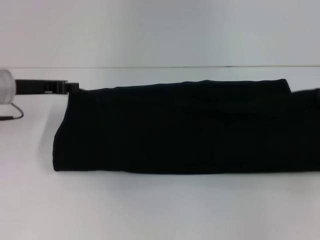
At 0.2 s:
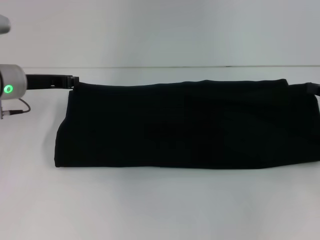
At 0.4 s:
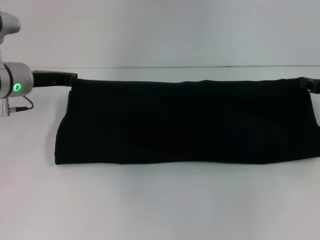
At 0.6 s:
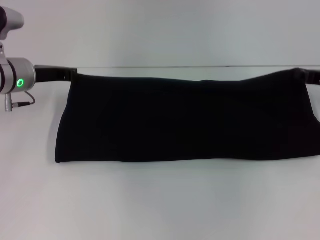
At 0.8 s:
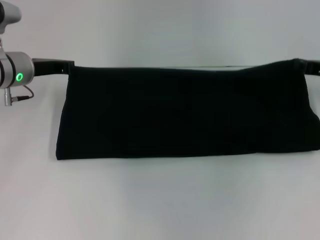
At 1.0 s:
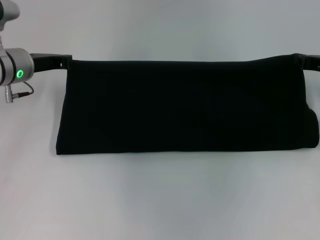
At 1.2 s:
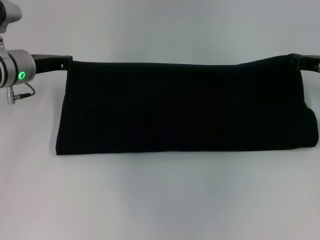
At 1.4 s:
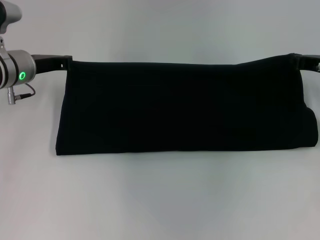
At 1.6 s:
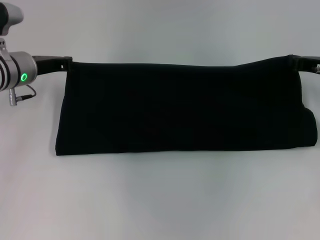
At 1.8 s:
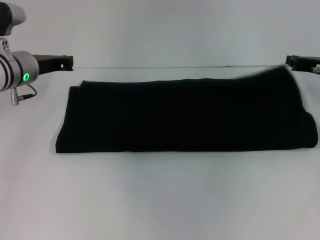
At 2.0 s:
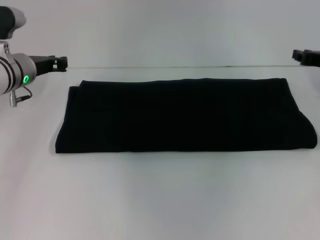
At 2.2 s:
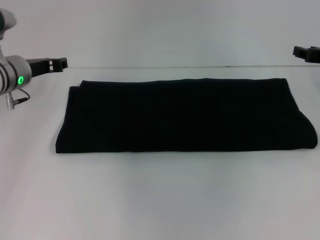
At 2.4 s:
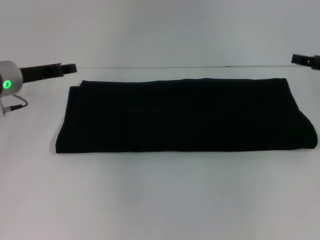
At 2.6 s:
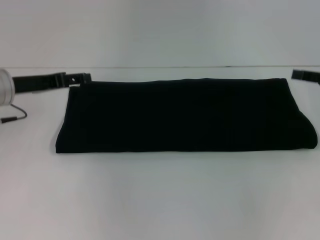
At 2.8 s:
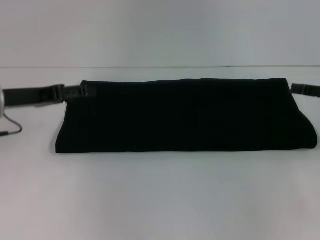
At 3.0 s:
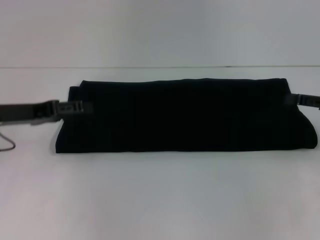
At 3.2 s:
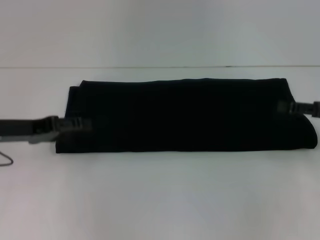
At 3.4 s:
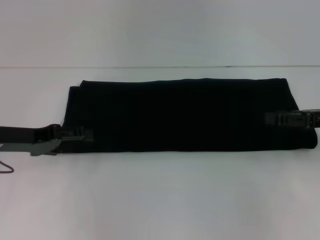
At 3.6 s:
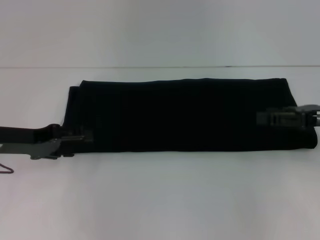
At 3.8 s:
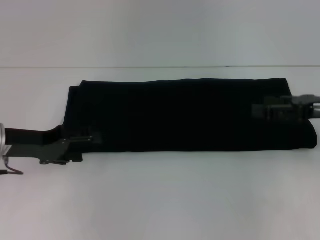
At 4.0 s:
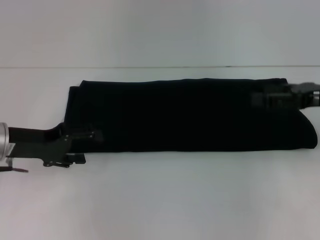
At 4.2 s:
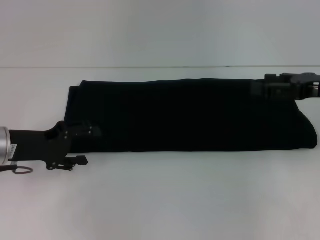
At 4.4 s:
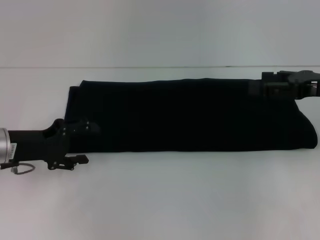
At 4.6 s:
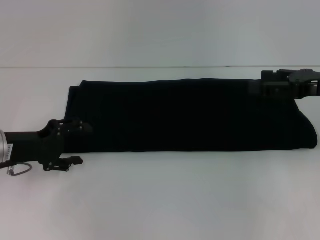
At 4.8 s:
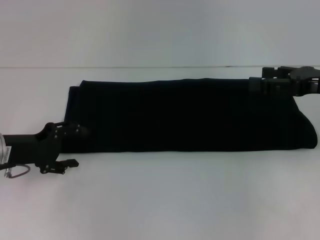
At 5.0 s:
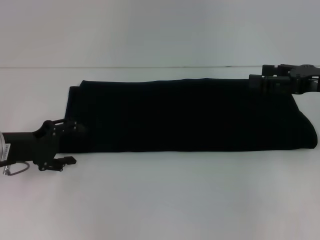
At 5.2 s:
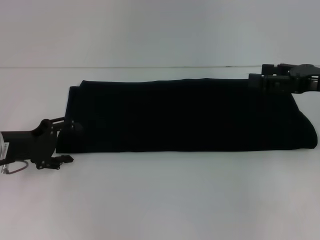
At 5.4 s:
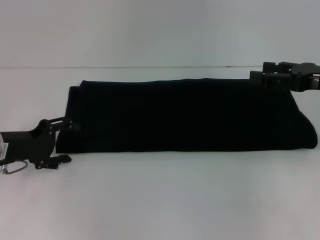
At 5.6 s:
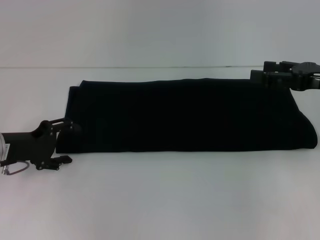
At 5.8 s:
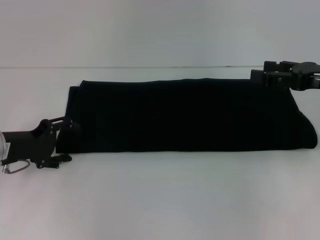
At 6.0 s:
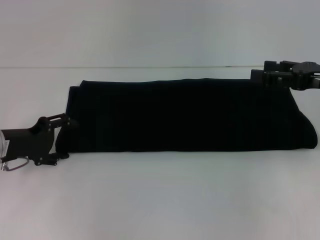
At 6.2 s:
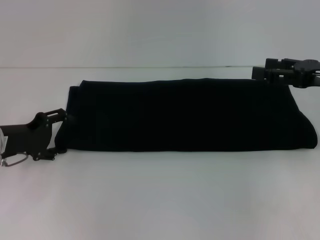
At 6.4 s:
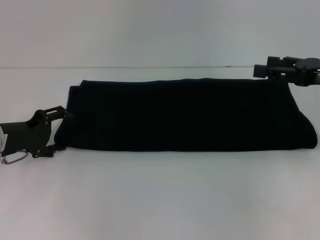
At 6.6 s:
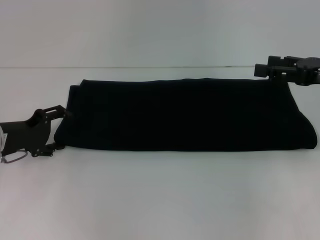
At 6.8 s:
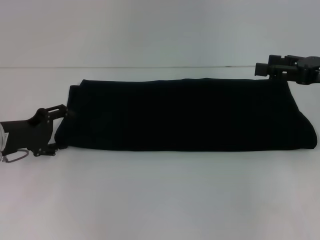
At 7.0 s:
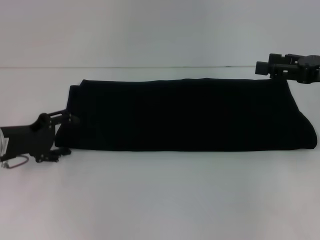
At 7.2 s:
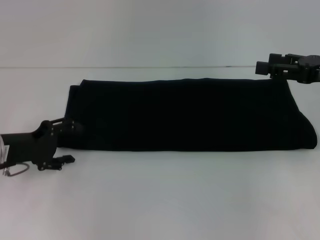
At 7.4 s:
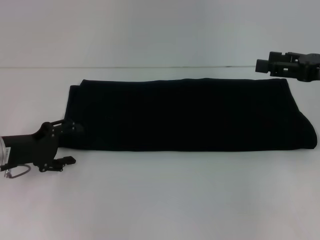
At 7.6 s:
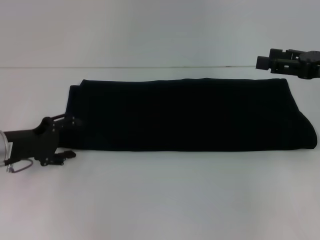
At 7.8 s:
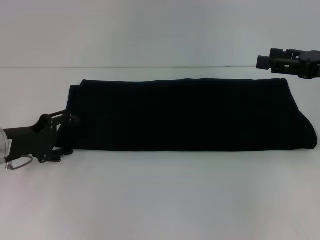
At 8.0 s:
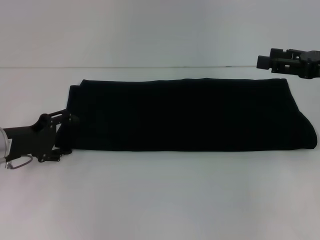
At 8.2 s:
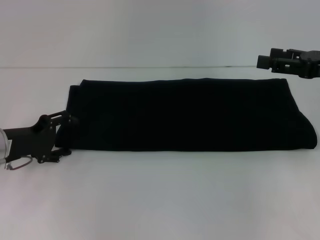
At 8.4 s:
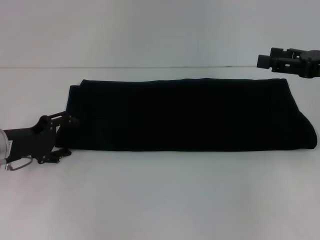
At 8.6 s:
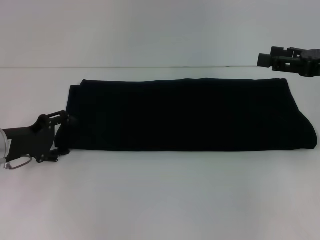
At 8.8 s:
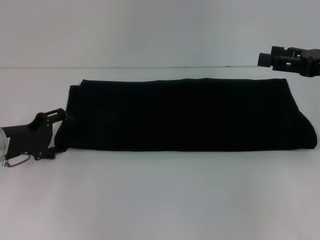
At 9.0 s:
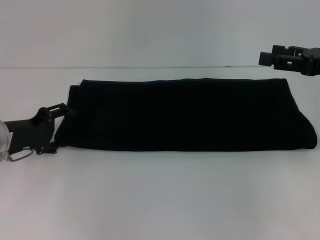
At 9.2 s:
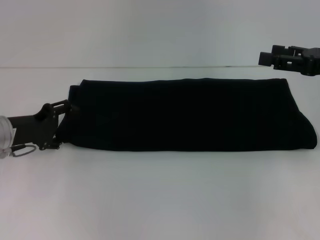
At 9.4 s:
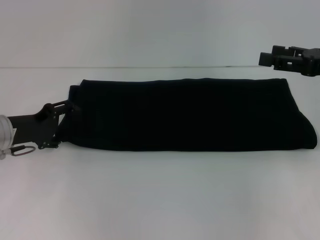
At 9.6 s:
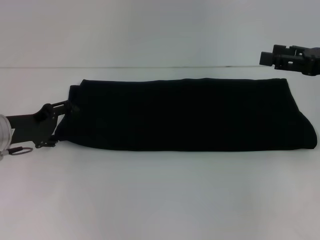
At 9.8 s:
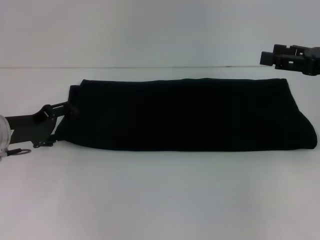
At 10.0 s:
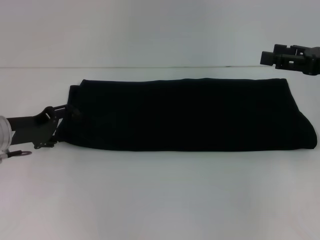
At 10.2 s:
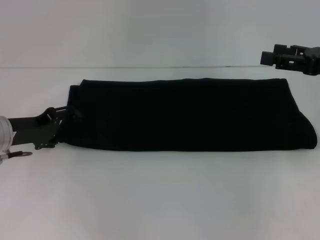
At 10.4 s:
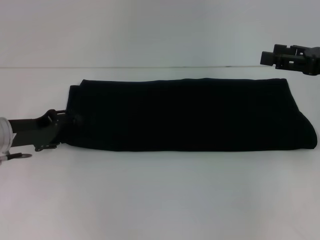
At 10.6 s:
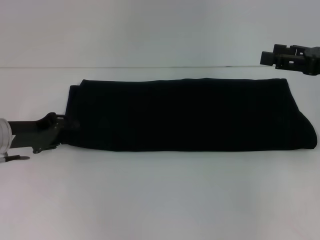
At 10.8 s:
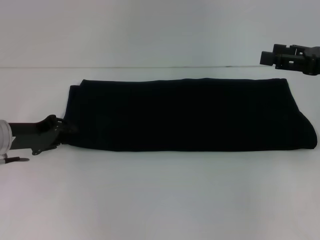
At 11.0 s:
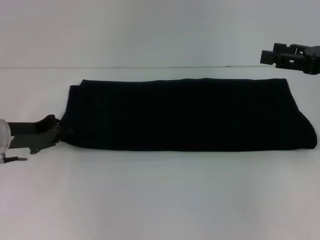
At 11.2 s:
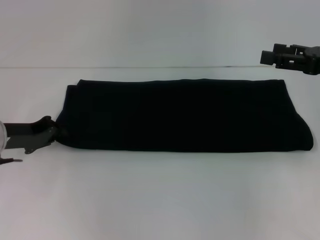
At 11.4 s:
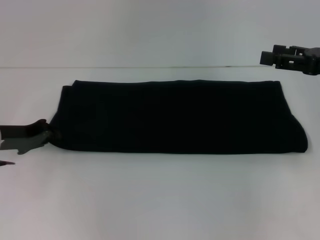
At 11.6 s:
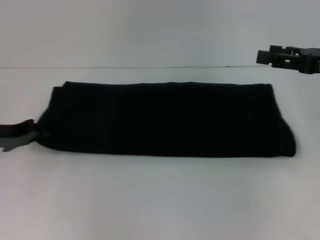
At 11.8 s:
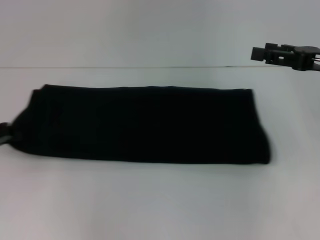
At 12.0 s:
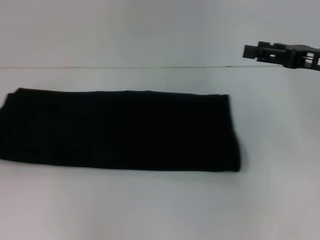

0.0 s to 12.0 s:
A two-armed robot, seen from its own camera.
Step, 0.0 to 3.8 s: Fold the clothes with your right hand.
0.0 to 1.6 s: The right gripper is displaced forward and to the left by approximately 10 cm; the left gripper changes place by about 5 cm.
1.6 to 3.0 s: The right gripper moves backward and to the right, approximately 10 cm, and opens its fingers, while the left gripper is displaced backward by approximately 10 cm, and opens its fingers.
3.0 to 4.4 s: The right gripper shifts about 5 cm to the left.
4.4 to 6.0 s: The grippers stay close to where they were, moving slightly.
6.0 to 7.6 s: The two grippers keep their place.
7.6 to 9.0 s: There are only small adjustments of the grippers.
9.0 to 10.4 s: The grippers make only small movements.
10.4 to 12.0 s: The left gripper heads to the left, covering some 10 cm, and closes up.

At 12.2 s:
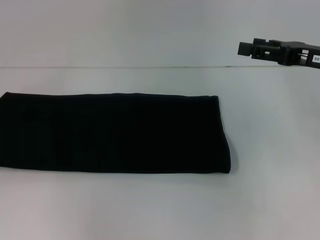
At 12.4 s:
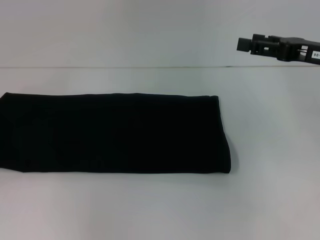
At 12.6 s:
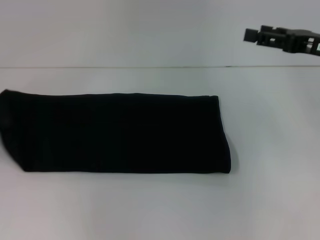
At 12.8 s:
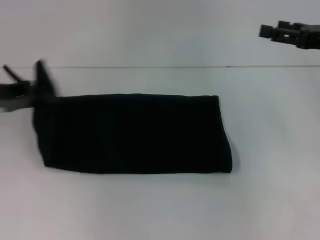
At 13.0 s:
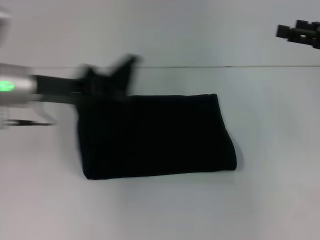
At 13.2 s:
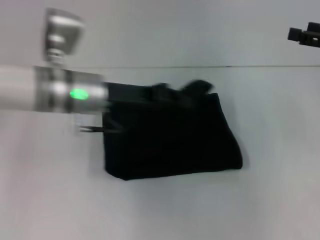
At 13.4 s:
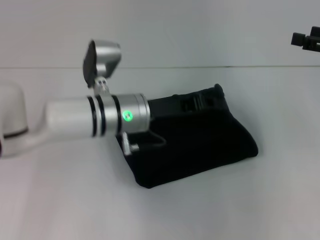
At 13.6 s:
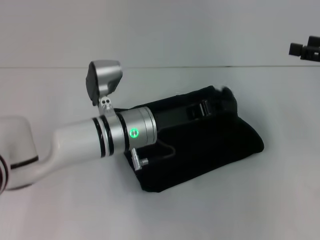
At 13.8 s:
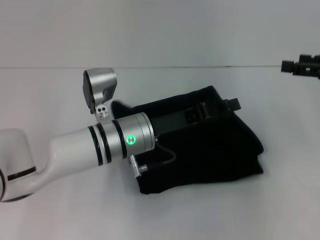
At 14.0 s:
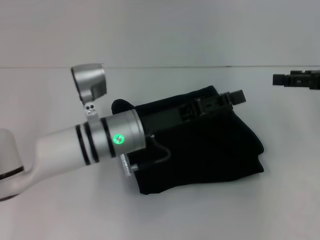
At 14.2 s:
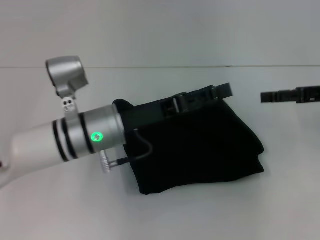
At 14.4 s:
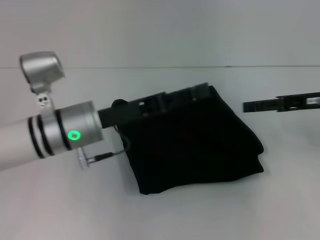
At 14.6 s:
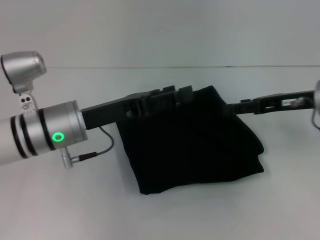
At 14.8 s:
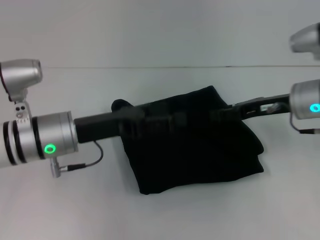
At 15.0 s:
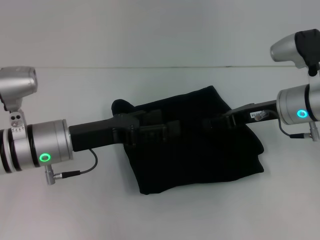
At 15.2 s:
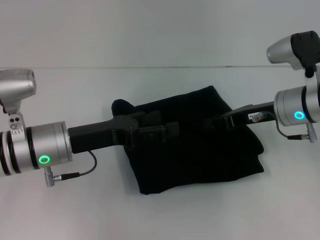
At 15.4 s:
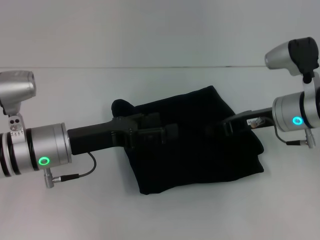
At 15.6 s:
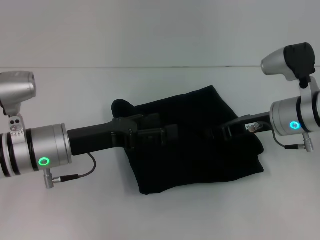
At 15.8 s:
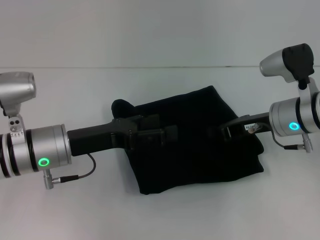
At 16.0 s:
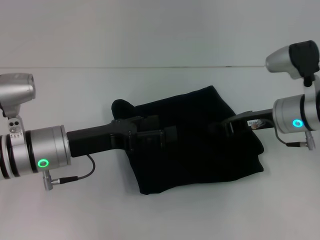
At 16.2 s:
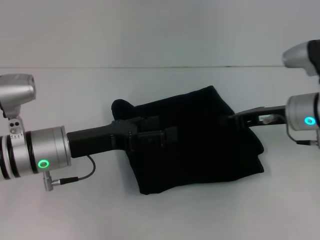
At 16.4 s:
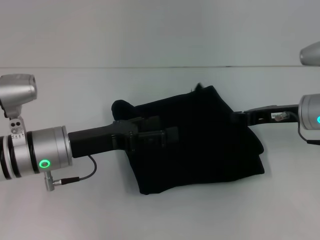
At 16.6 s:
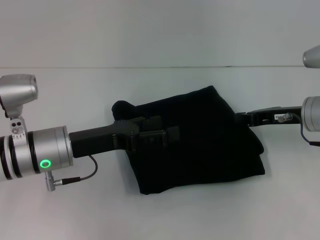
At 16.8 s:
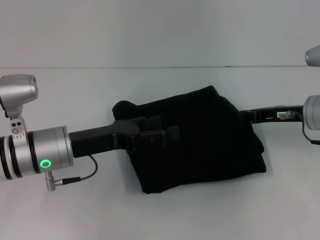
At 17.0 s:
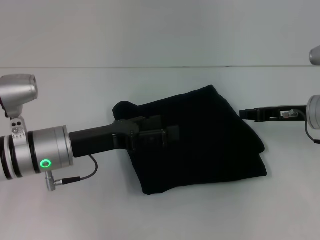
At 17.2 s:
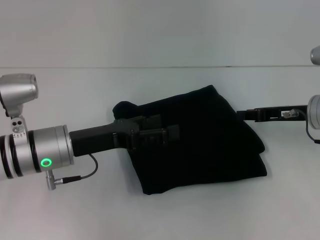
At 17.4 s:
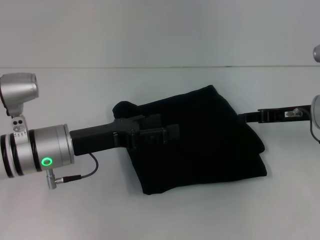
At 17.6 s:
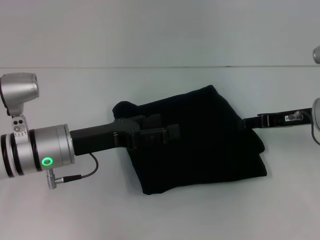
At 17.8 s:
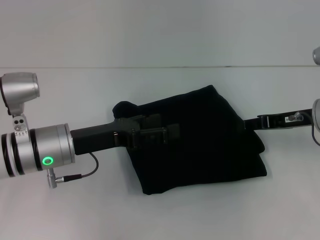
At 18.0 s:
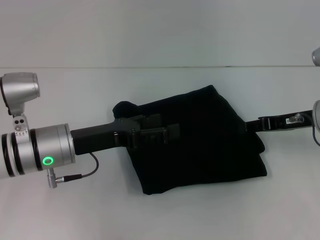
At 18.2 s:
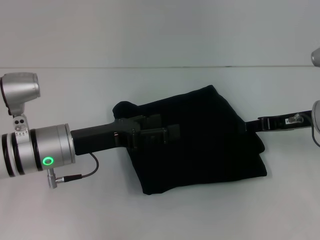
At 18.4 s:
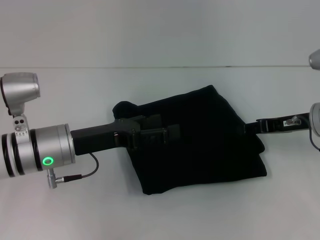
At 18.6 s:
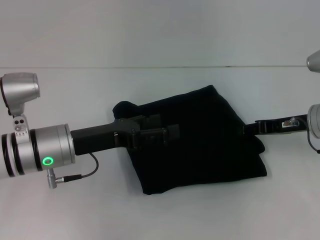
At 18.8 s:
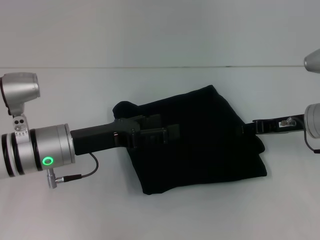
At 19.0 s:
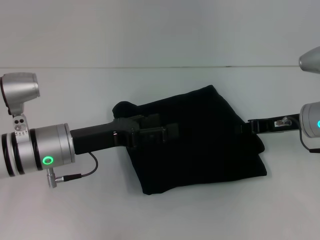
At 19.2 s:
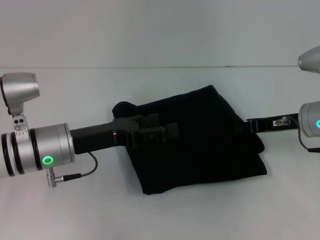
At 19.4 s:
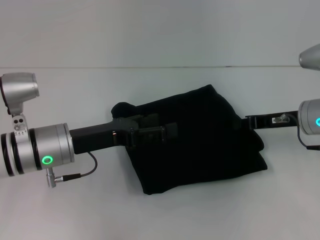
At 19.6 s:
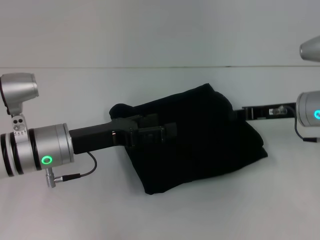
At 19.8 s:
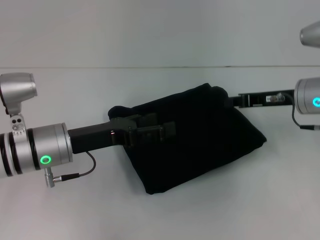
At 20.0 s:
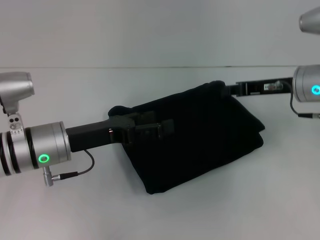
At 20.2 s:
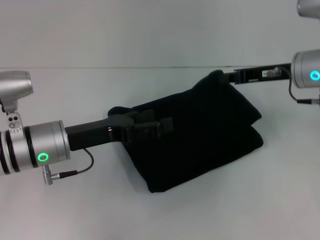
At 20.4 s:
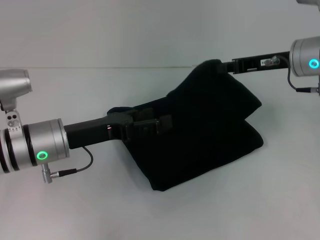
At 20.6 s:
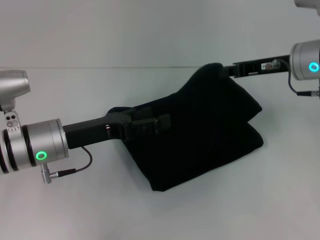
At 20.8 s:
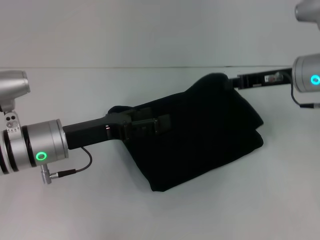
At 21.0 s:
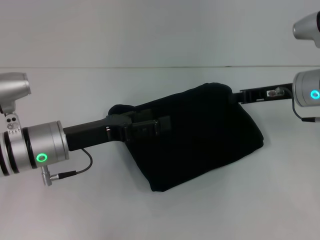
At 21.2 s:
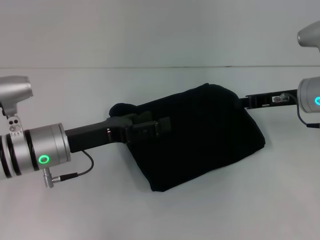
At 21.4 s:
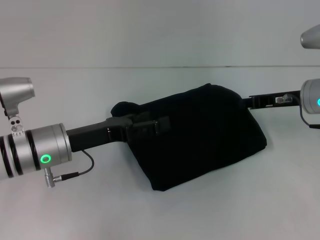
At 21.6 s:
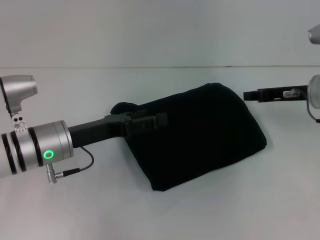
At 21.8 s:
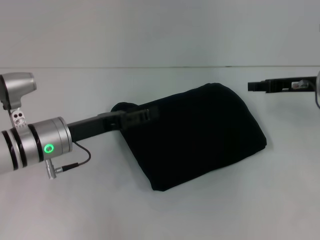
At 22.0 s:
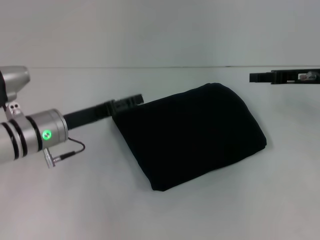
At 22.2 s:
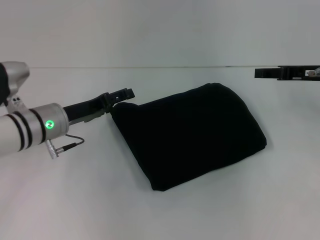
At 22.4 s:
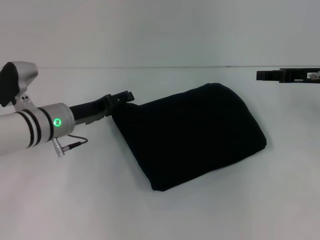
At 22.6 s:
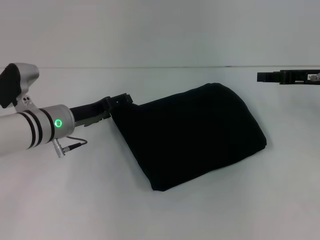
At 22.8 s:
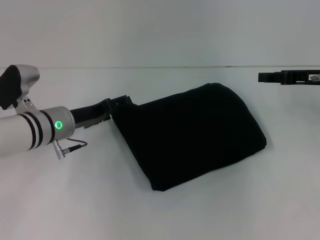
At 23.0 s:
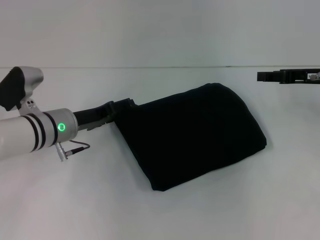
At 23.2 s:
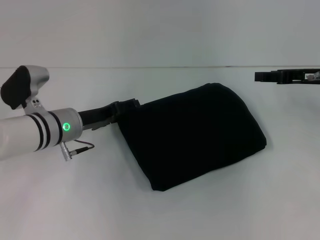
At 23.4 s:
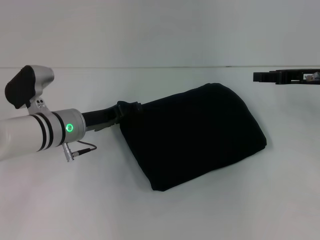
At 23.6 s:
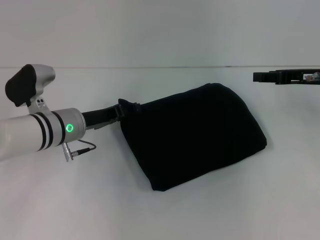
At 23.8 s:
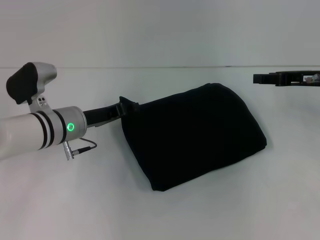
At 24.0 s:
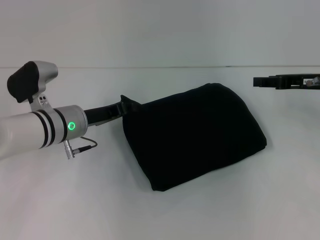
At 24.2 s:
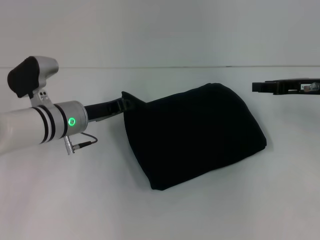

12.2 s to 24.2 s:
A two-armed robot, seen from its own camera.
Step, 12.2 to 15.2 s: Fold the clothes with your left hand.
12.2 to 13.8 s: The right gripper travels to the right by about 5 cm. Meanwhile the left gripper heads to the right, covering some 30 cm.
13.8 to 15.2 s: The right gripper shifts roughly 15 cm to the left and downward, and closes its fingers, while the left gripper heads to the left, covering about 10 cm, and opens up.
15.2 to 16.6 s: The right gripper closes its fingers.
16.6 to 18.2 s: The right gripper opens its fingers.
18.2 to 19.8 s: The right gripper closes.
19.8 to 21.2 s: The grippers make only small movements.
21.2 to 22.6 s: The left gripper shifts about 5 cm forward. Meanwhile the right gripper ends up approximately 5 cm from where it was, and opens.
22.6 to 24.2 s: The left gripper closes up.
